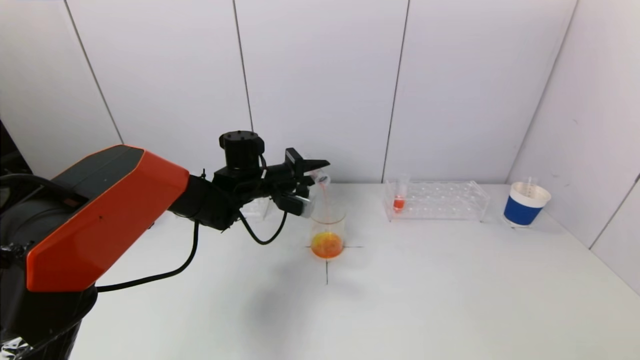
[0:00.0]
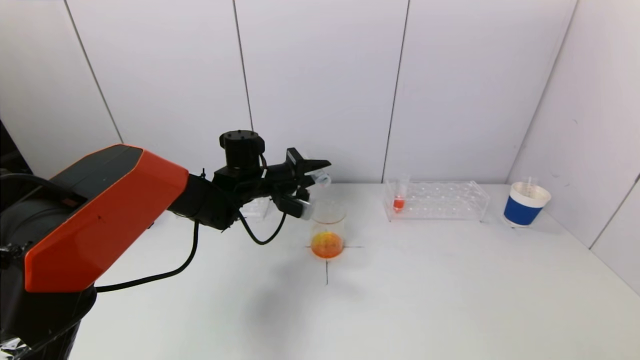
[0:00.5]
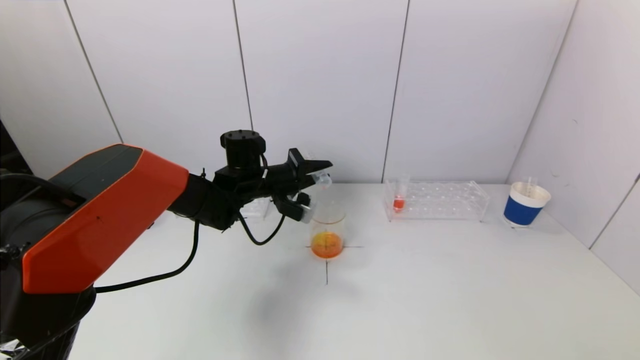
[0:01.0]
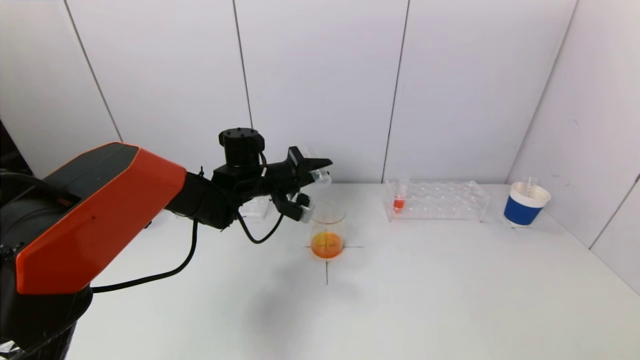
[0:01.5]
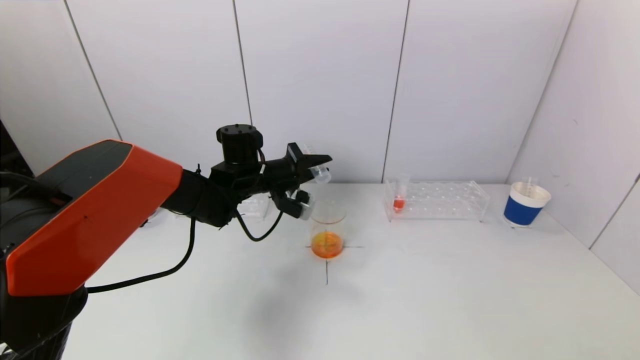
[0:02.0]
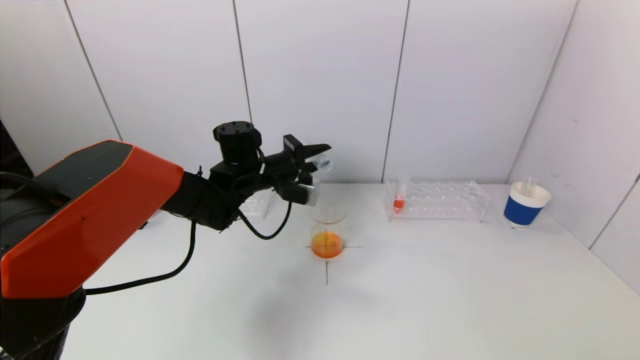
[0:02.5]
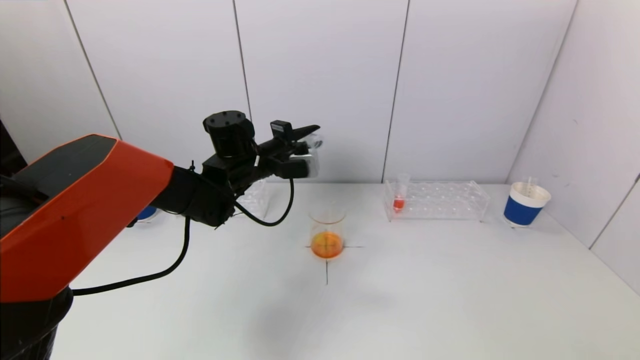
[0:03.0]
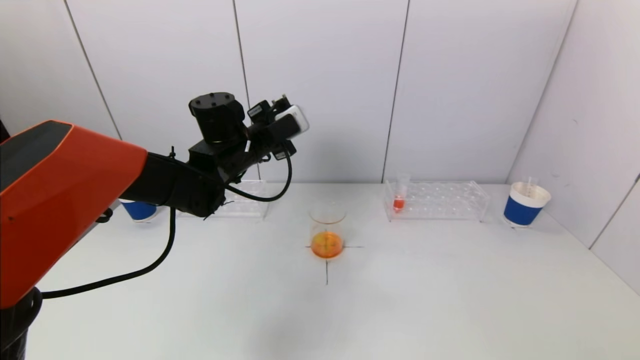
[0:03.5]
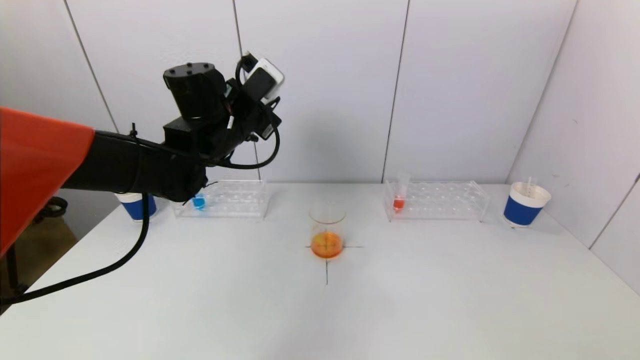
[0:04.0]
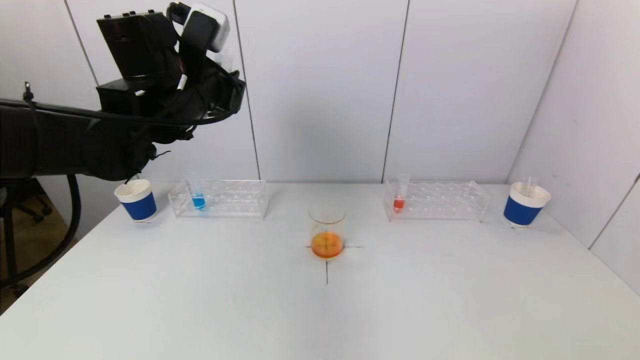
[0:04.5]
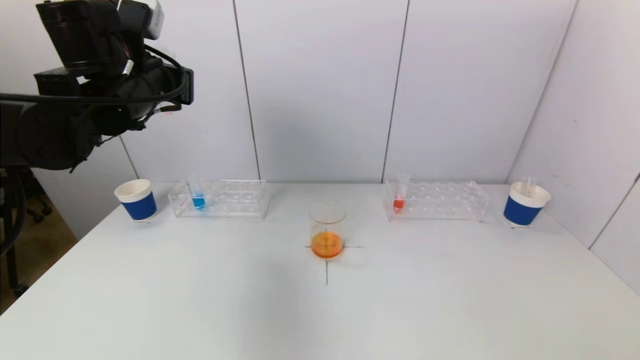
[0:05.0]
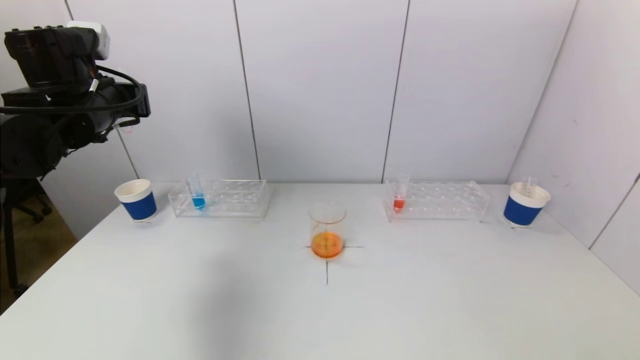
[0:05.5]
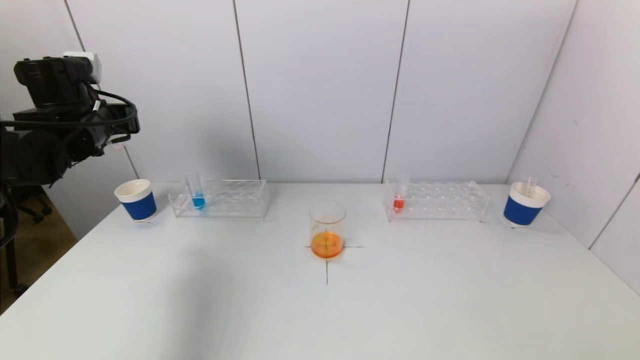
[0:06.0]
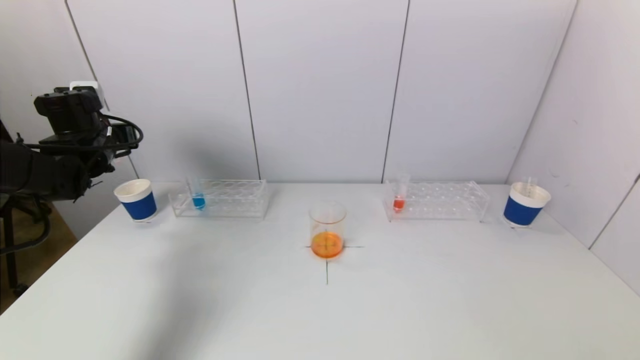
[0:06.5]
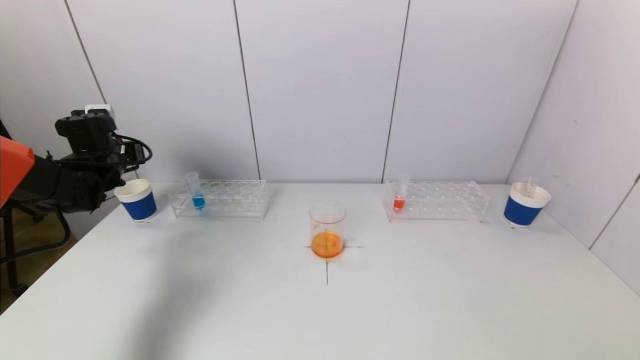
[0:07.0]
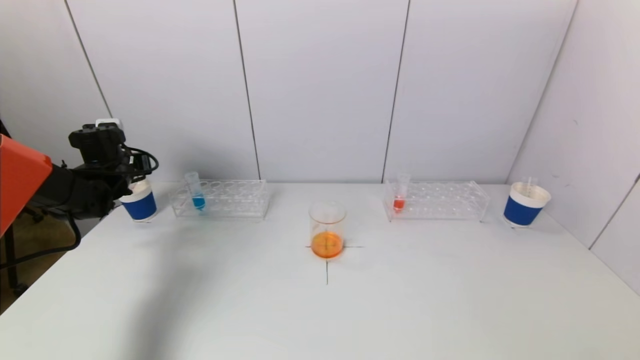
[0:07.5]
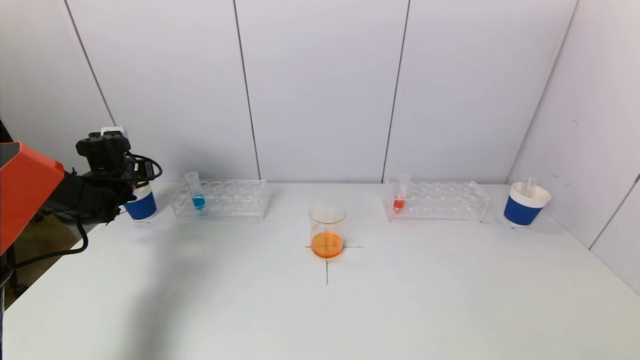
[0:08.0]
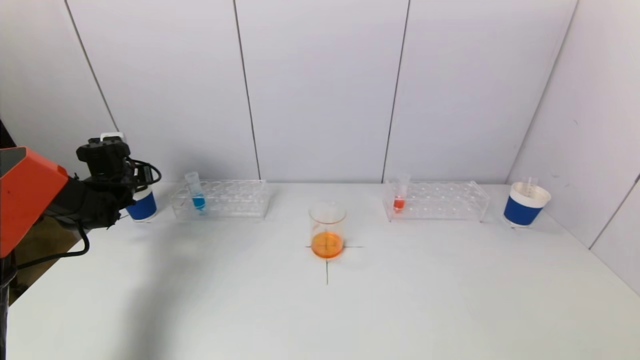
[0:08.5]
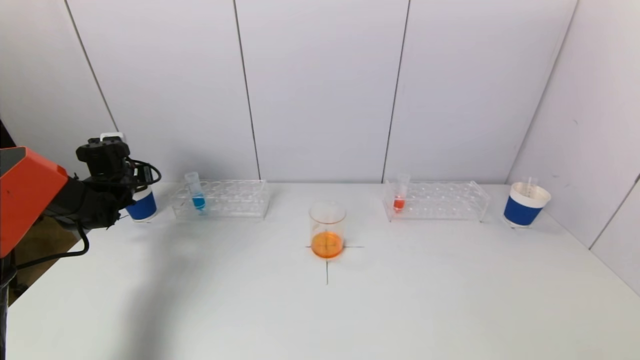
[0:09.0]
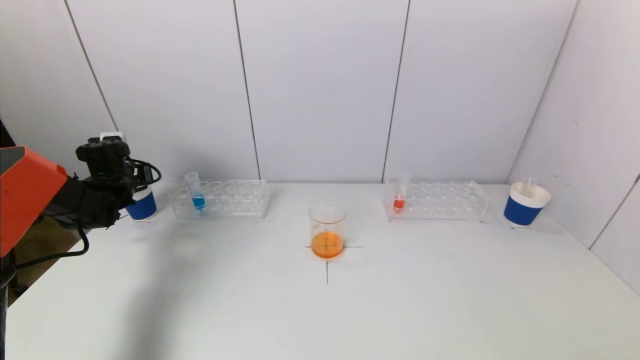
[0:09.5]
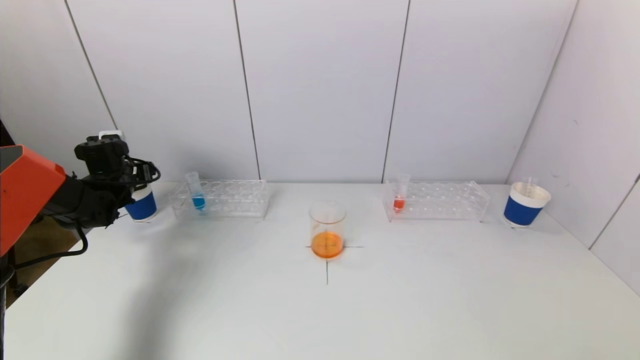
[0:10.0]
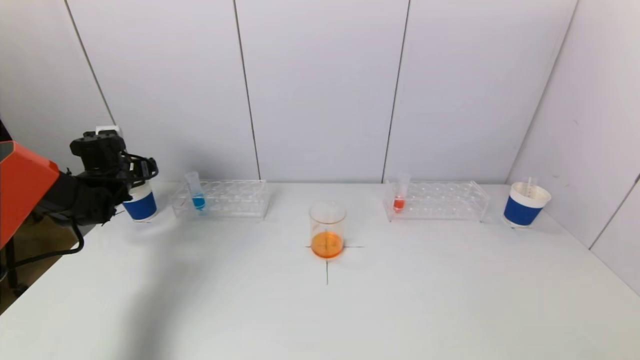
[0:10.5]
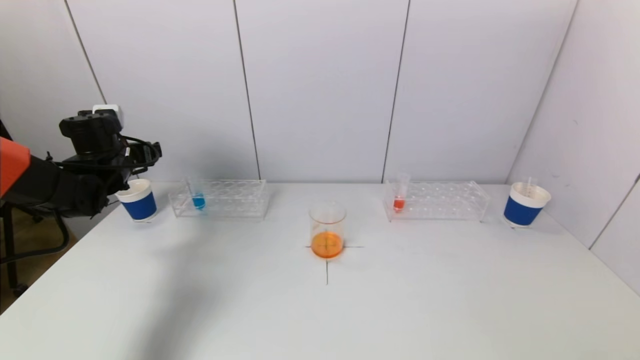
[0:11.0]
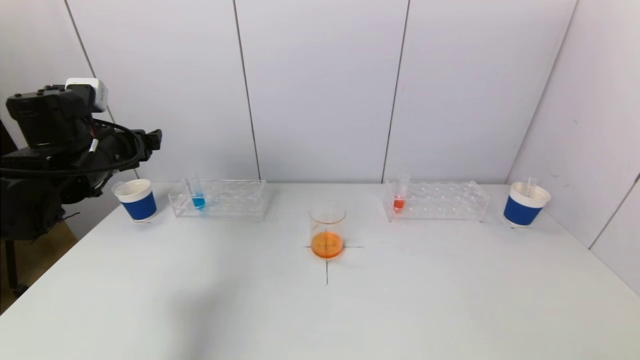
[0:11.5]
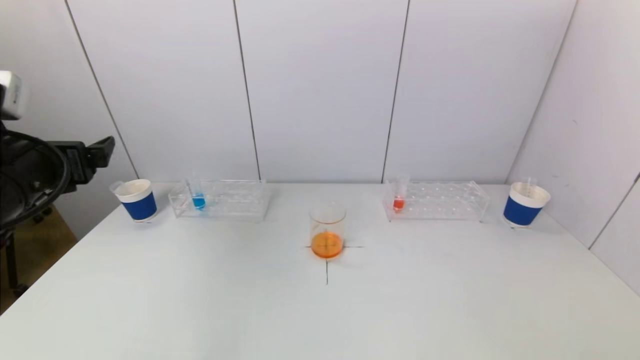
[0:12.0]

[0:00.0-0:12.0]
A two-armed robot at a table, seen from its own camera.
Task of the whole recording: pick up a test tube with pigment on left test tube rack and a test tube with pigment on right test tube rack by grippers and pour them into the beaker.
Step, 0:02.0 to 0:10.0: Place the test tube into the paper cup with the left gripper.
0:00.0 to 0:02.0: There are only small adjustments of the grippers.
0:02.0 to 0:04.0: The left gripper travels upward by some 10 cm.
0:04.0 to 0:06.0: The left gripper travels to the left by approximately 20 cm.
0:06.0 to 0:08.0: The left gripper goes approximately 15 cm downward, forward and to the left.
0:08.0 to 0:10.0: The left gripper opens its fingers.
0:10.0 to 0:12.0: The left gripper goes roughly 30 cm backward and upward.

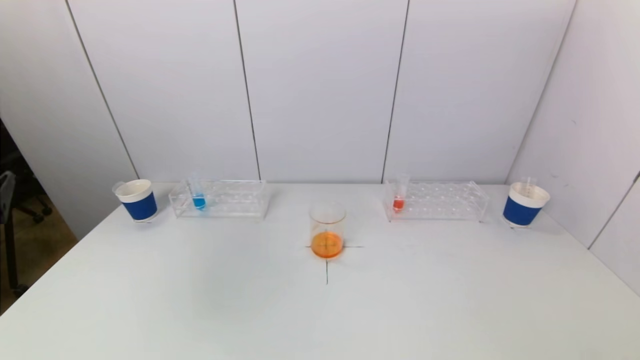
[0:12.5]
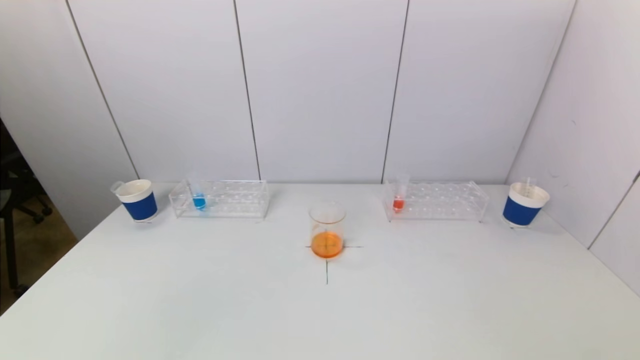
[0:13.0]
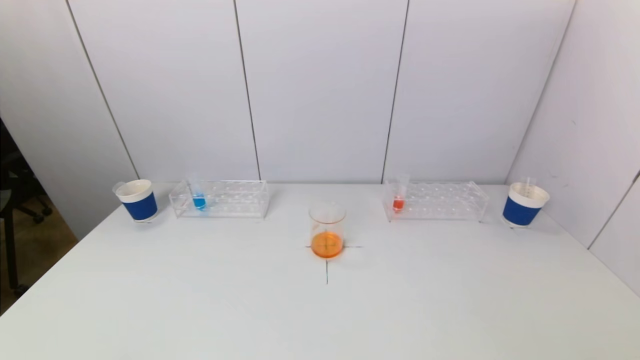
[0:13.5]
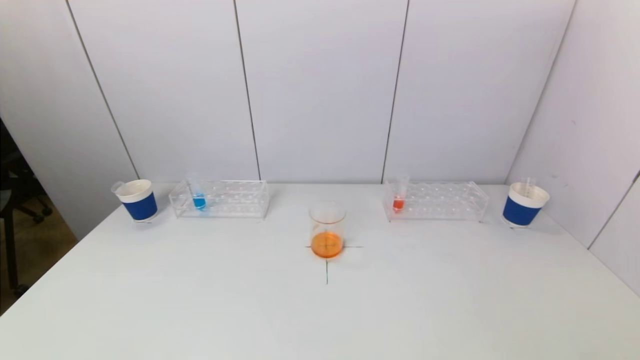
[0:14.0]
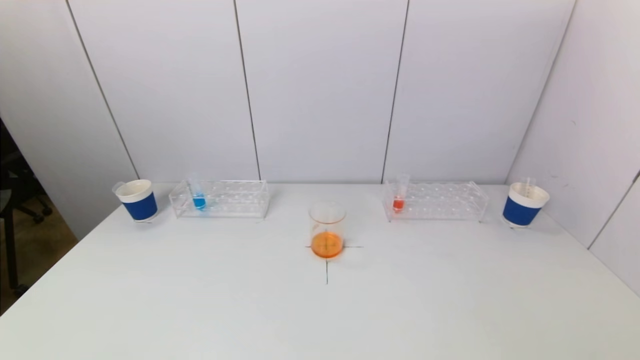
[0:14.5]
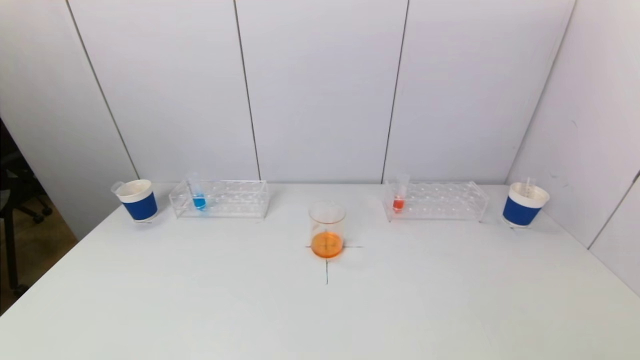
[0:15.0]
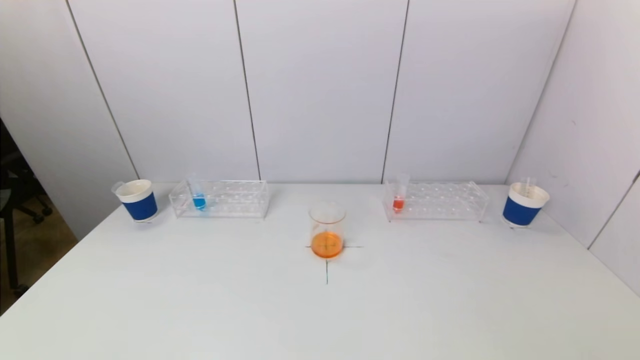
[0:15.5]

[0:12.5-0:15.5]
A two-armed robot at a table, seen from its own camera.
Task of the whole recording: pick up a test tube with pigment on left test tube rack and a test tube with pigment on right test tube rack by grippers and pour them into the beaker.
0:12.5 to 0:14.0: The left gripper heads downward and backward, covering about 20 cm.

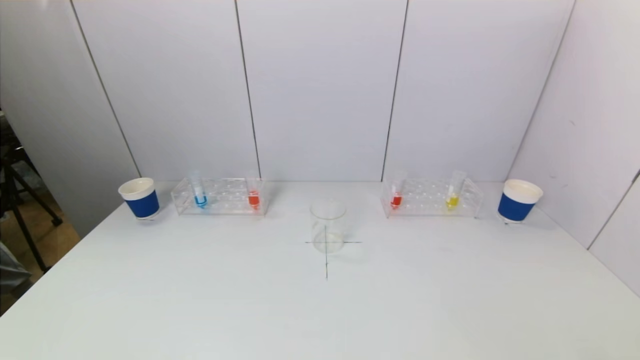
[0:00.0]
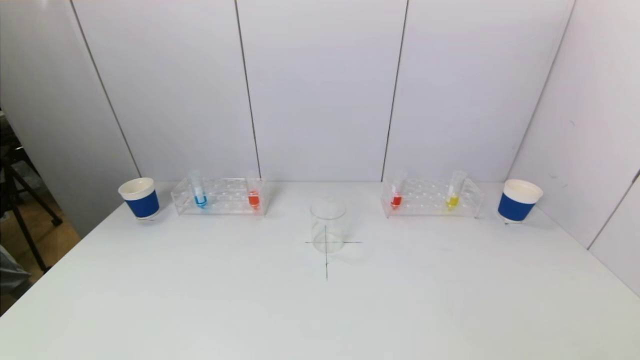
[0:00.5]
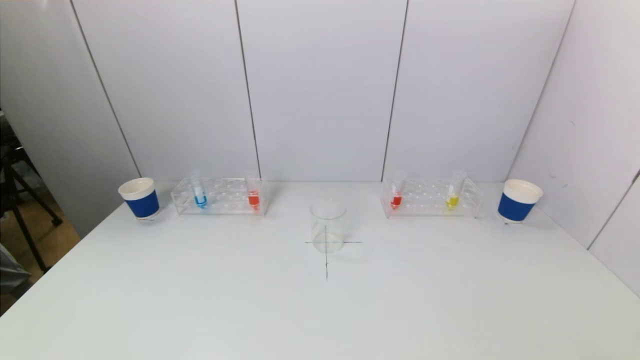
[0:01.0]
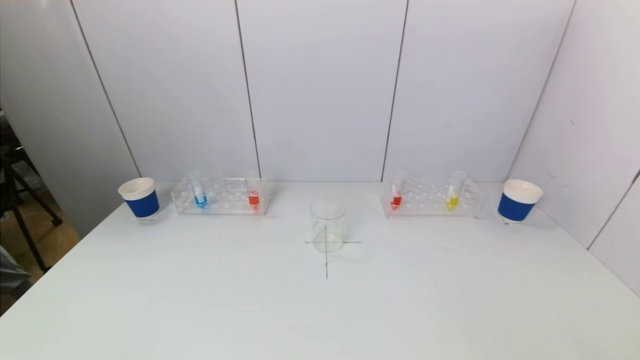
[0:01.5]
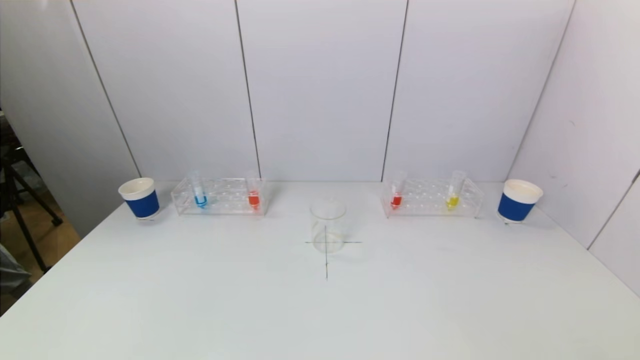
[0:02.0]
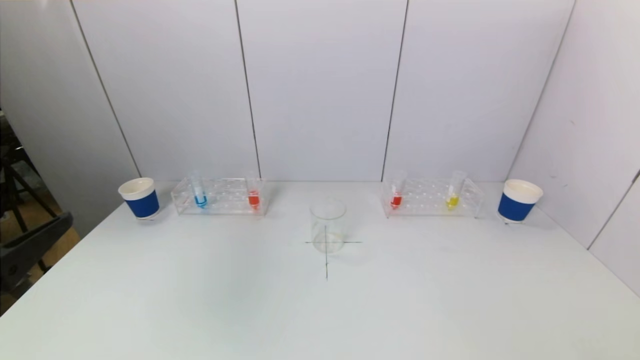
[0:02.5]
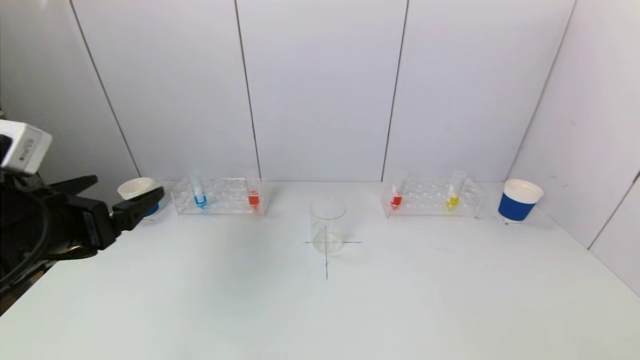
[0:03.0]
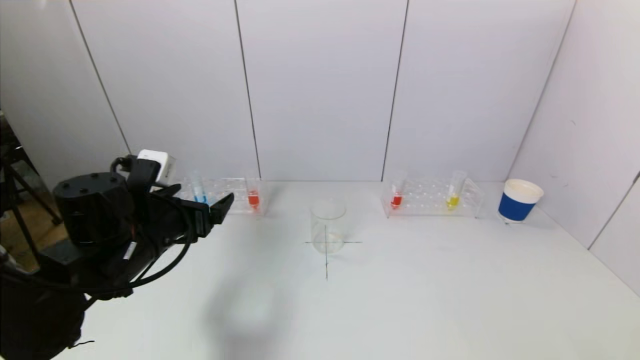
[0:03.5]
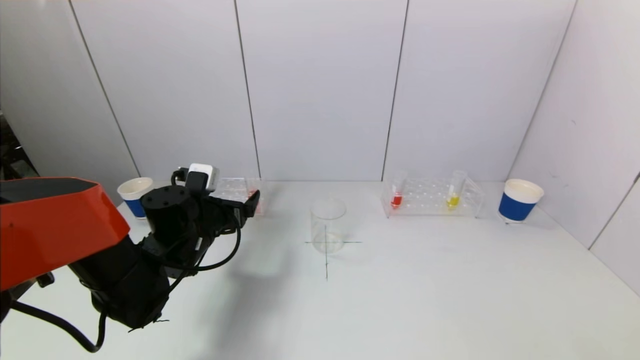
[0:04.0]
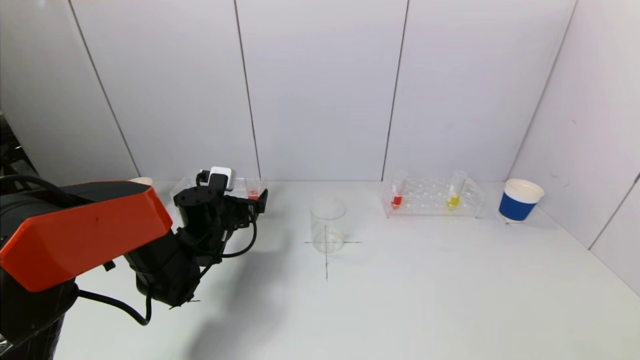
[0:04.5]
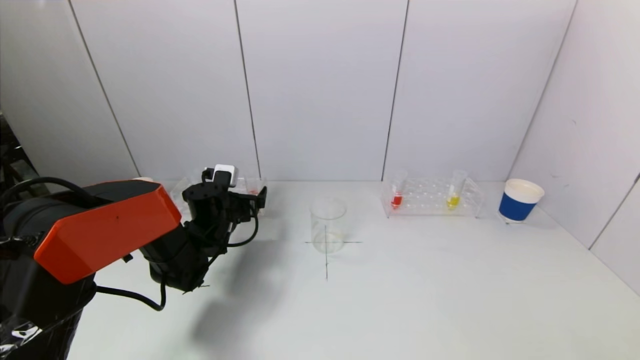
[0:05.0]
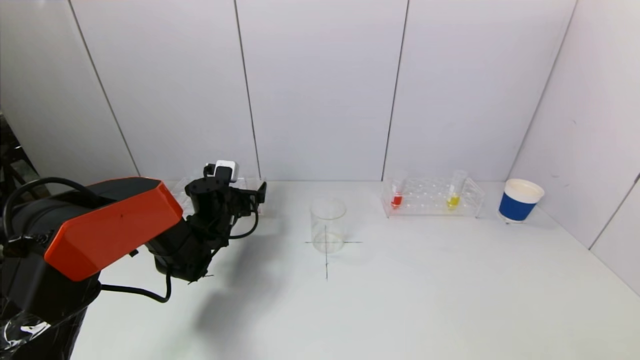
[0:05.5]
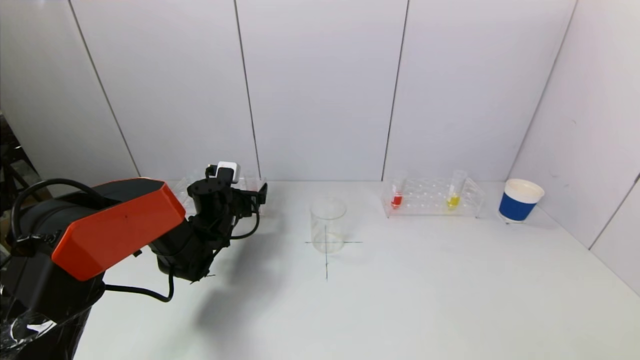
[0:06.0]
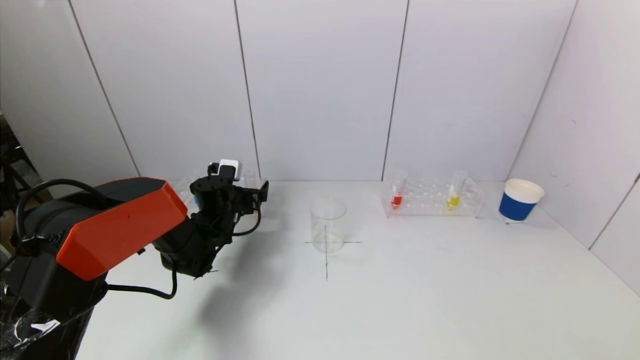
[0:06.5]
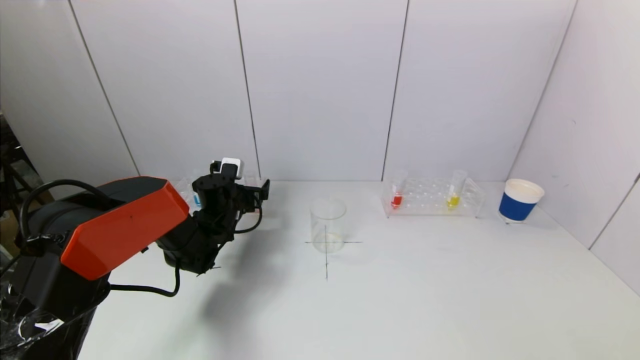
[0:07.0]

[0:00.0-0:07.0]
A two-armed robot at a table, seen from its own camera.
Task of the whole recording: pick up a test tube with pigment on left test tube rack and a test tube with pigment on right test tube rack by grippers and pour them into the beaker.
0:02.0 to 0:03.5: The left gripper travels forward by approximately 25 cm.
0:03.5 to 0:05.0: The left gripper goes about 15 cm forward and downward.
0:05.0 to 0:07.0: The grippers move only a little.
